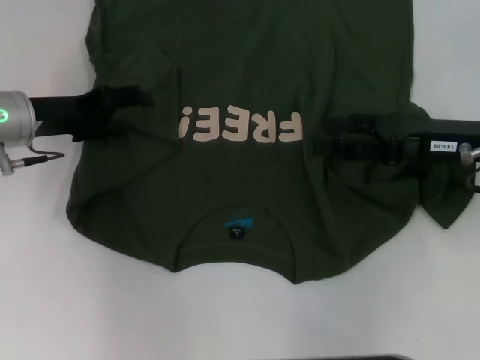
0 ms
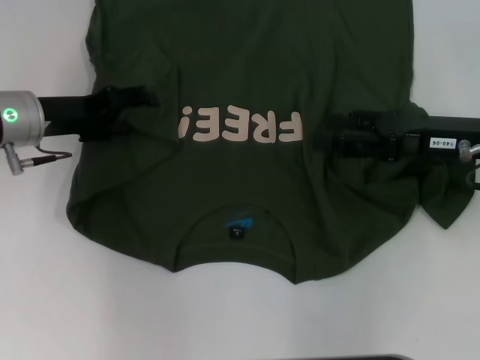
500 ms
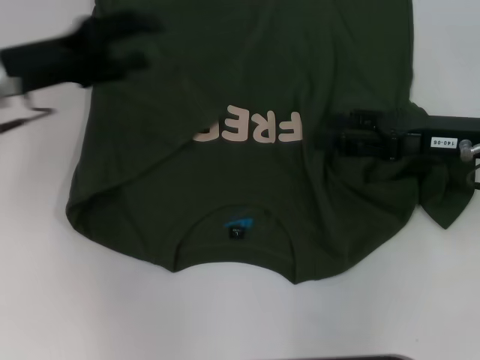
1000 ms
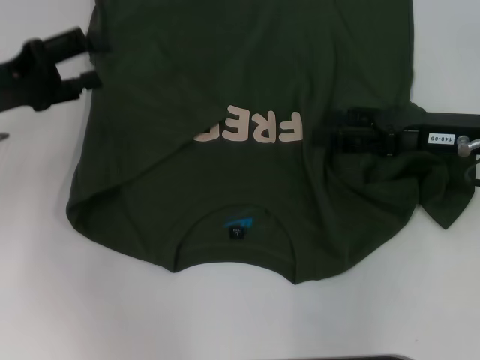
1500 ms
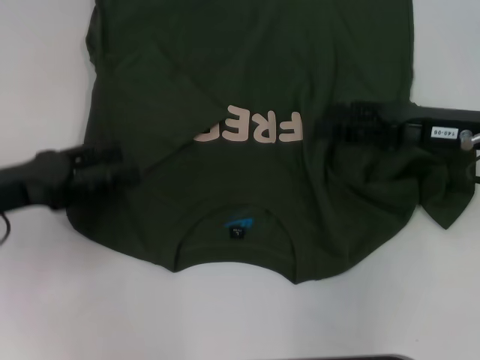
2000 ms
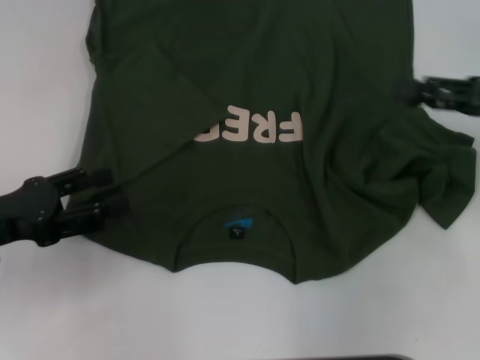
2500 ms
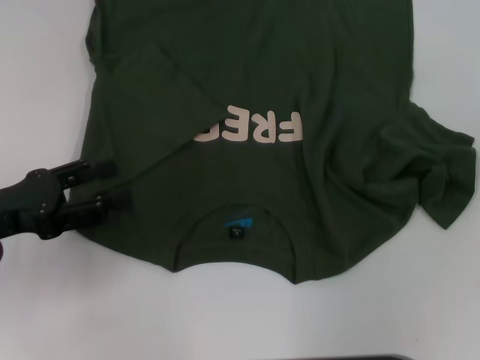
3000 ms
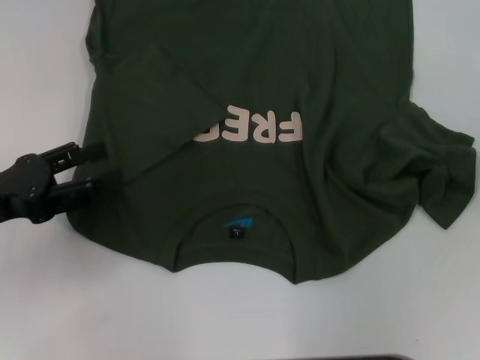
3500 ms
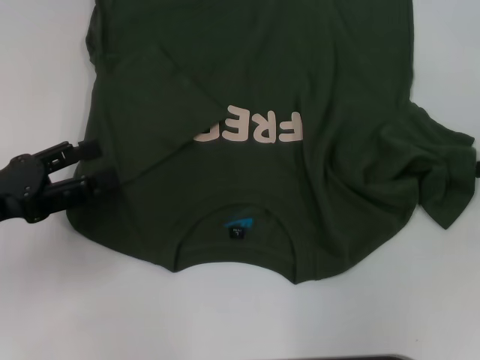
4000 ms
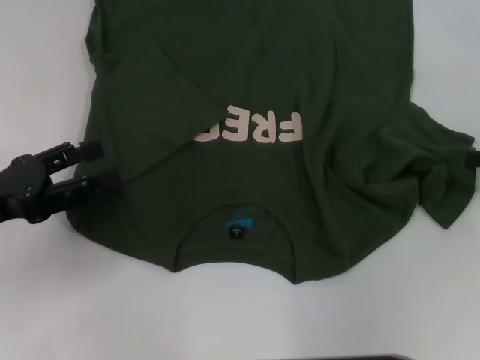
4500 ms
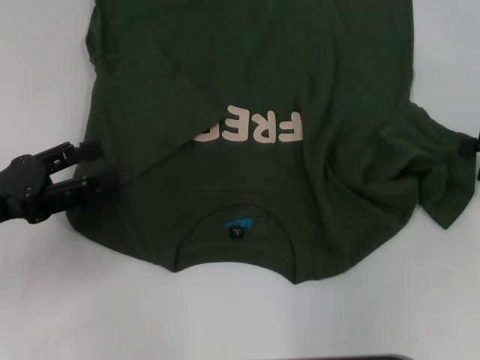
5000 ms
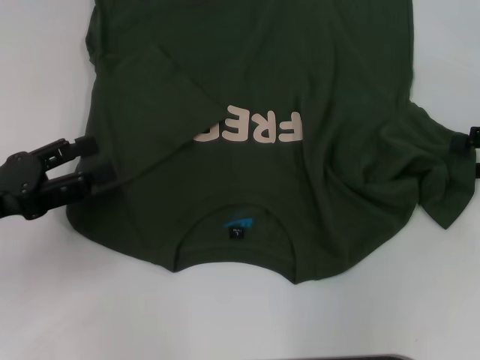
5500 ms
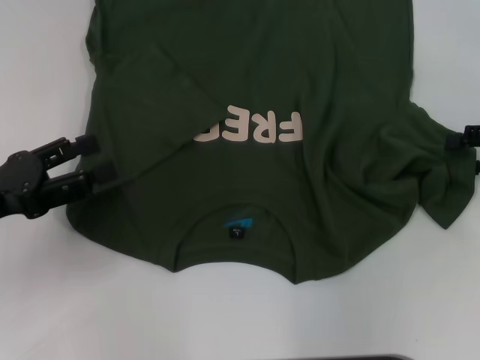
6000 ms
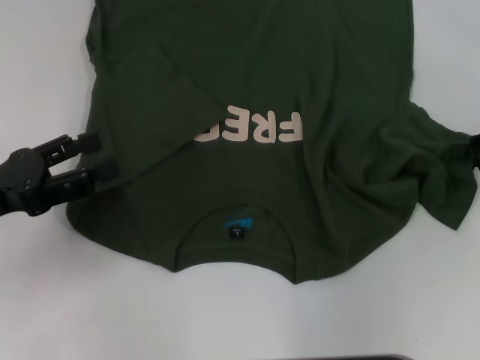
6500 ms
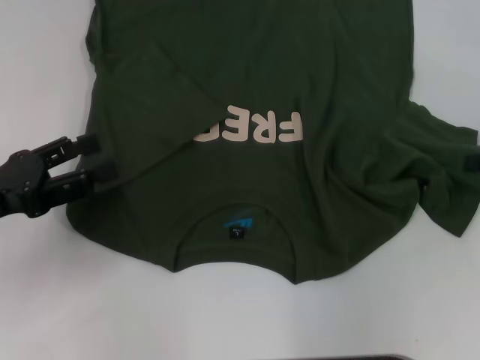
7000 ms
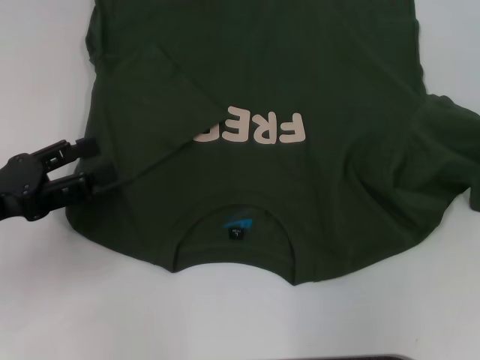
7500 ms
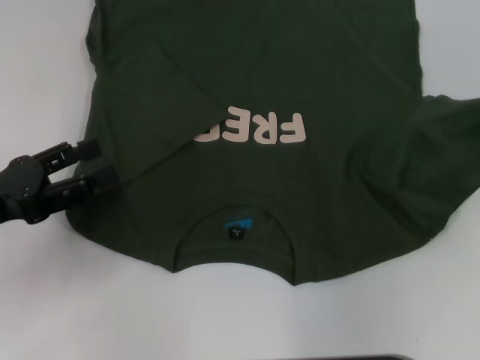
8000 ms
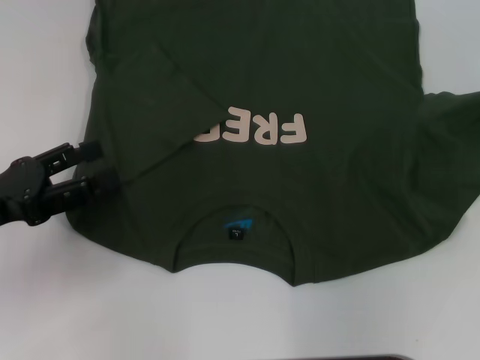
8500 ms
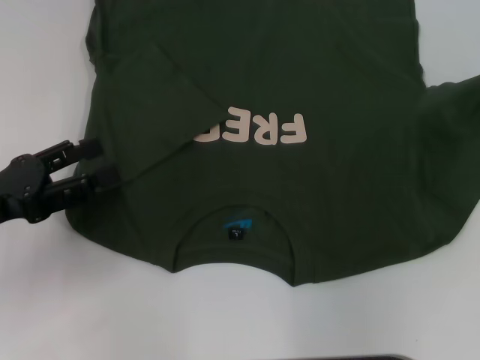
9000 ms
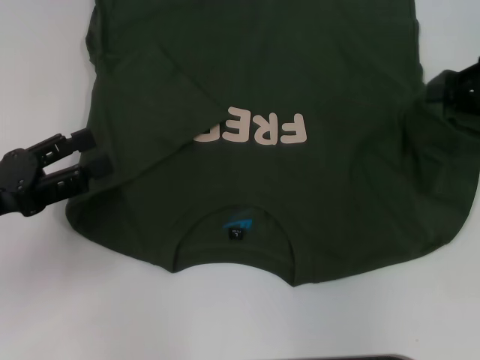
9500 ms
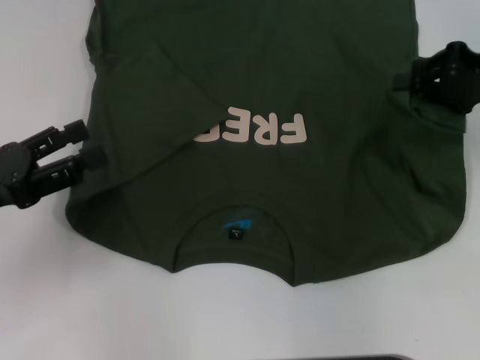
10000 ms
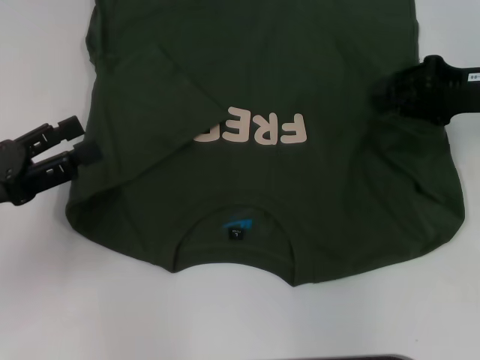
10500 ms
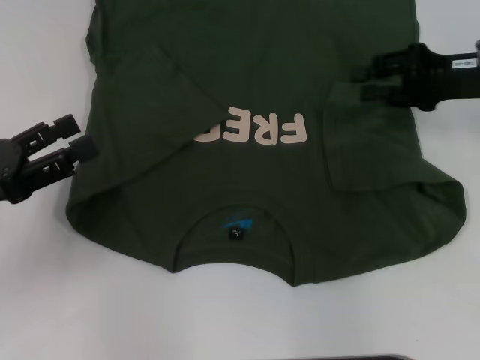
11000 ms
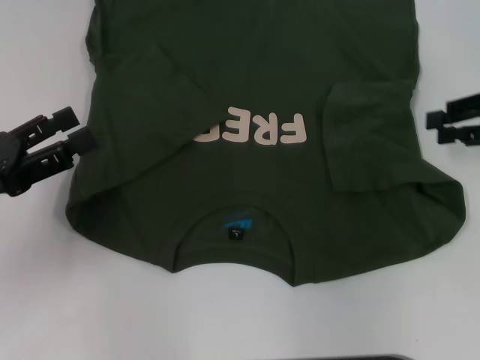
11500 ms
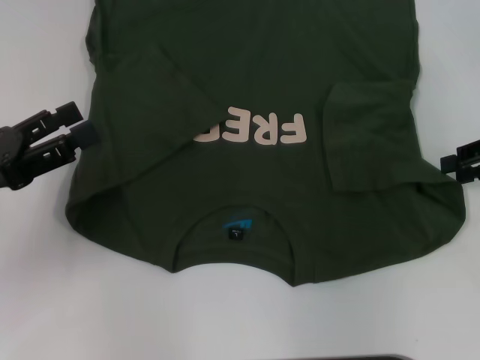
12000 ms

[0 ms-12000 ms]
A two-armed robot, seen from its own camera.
0 ms to 2000 ms: The left gripper travels backward by roughly 10 cm.
2000 ms to 4000 ms: The right gripper is displaced to the right by some 15 cm.
4000 ms to 6000 ms: The grippers make only small movements.
6000 ms to 8000 ms: The right gripper moves about 5 cm, and closes.
8000 ms to 10000 ms: The right gripper travels to the left by roughly 10 cm.
10000 ms to 12000 ms: The right gripper changes place by about 5 cm, and opens up.

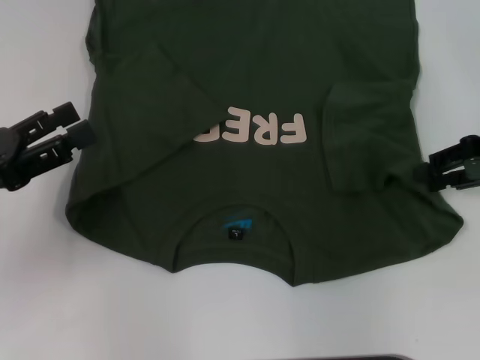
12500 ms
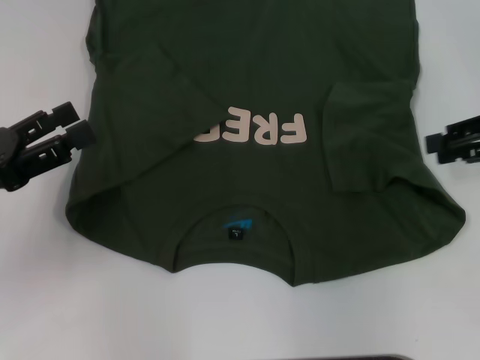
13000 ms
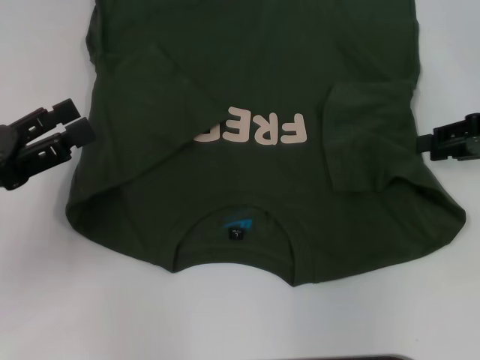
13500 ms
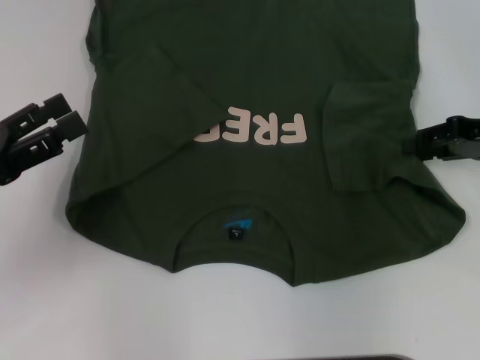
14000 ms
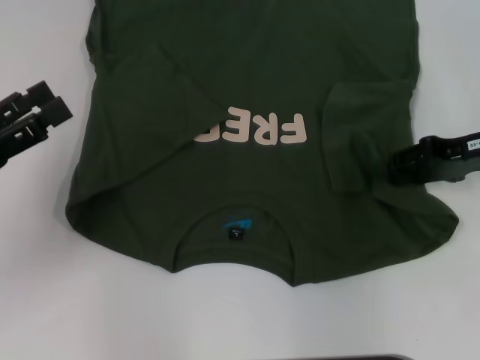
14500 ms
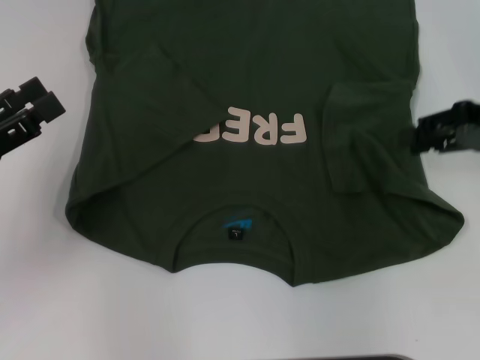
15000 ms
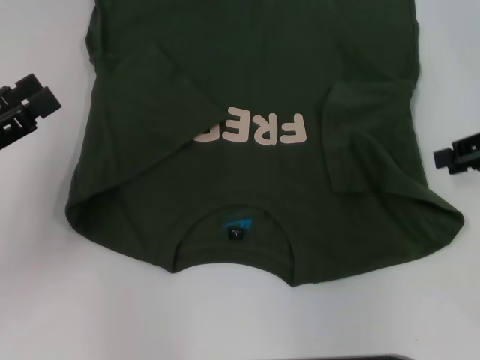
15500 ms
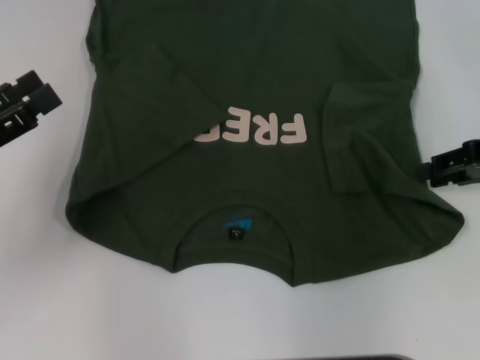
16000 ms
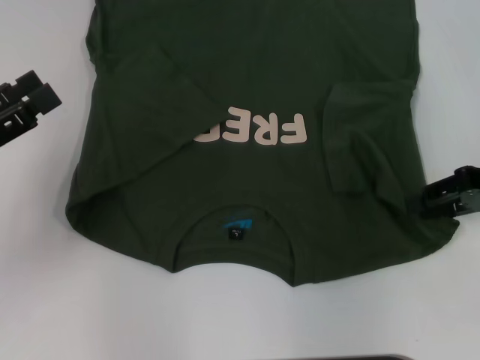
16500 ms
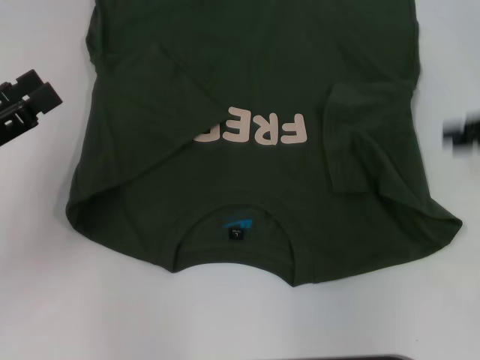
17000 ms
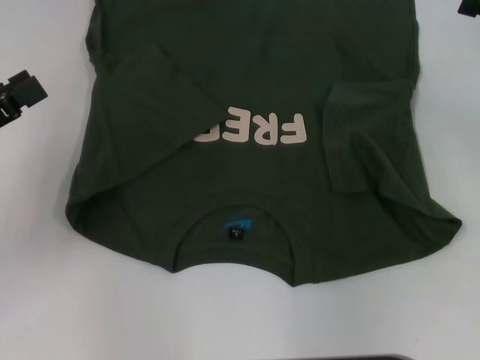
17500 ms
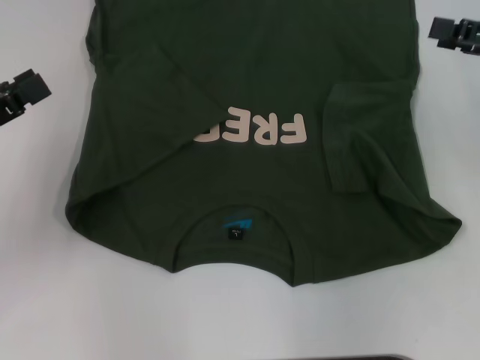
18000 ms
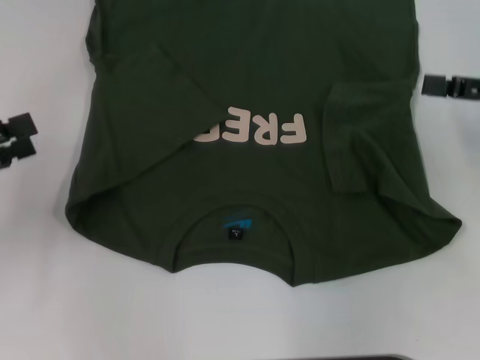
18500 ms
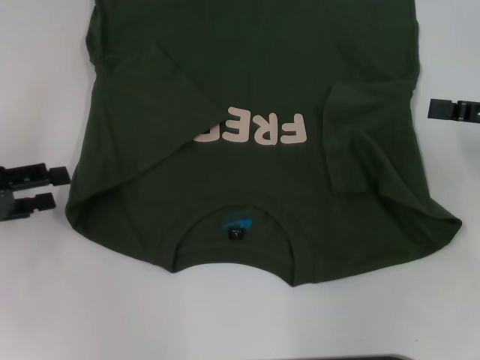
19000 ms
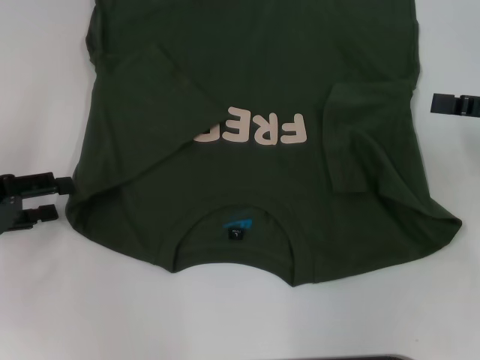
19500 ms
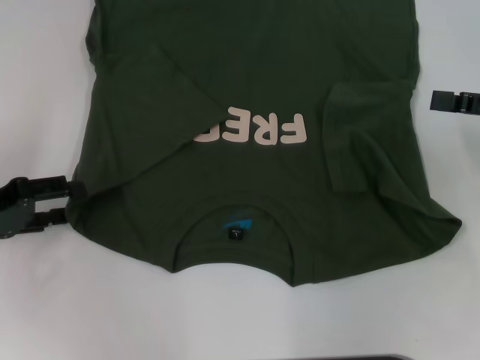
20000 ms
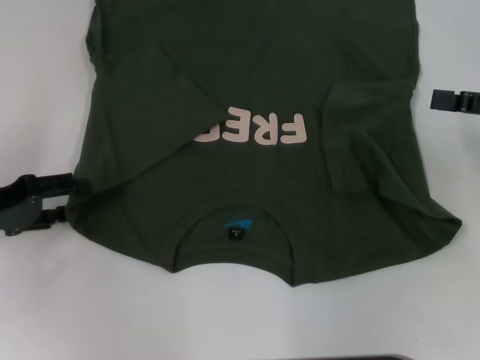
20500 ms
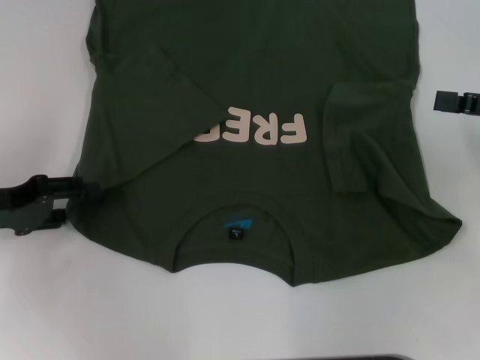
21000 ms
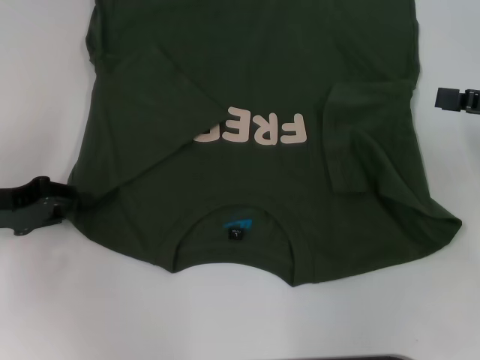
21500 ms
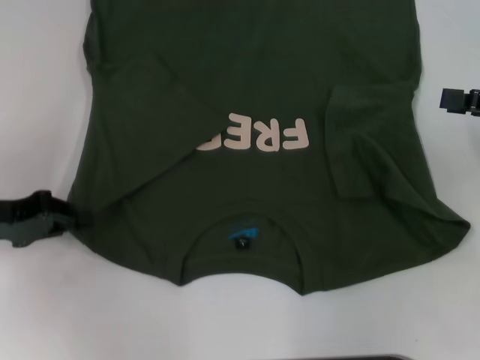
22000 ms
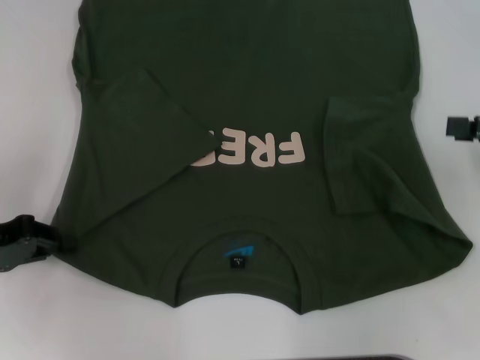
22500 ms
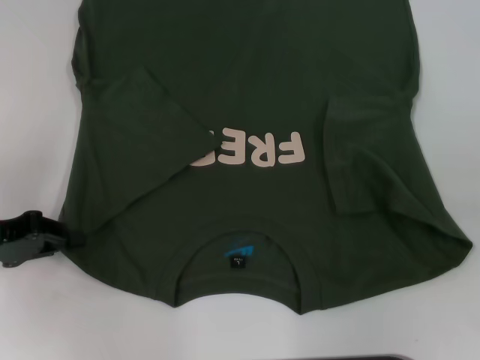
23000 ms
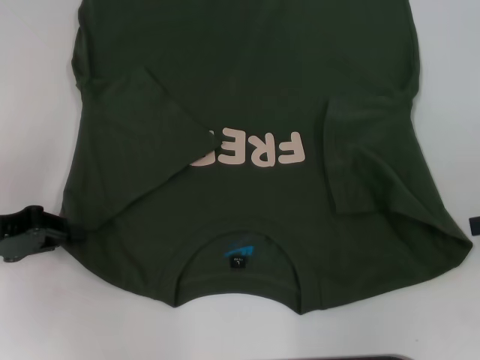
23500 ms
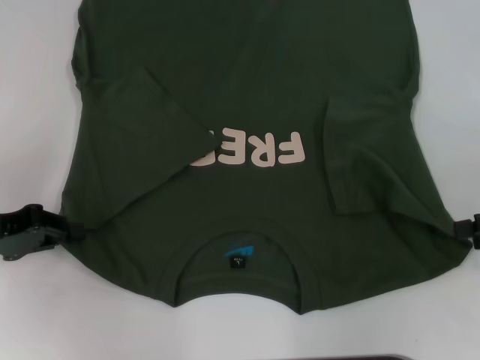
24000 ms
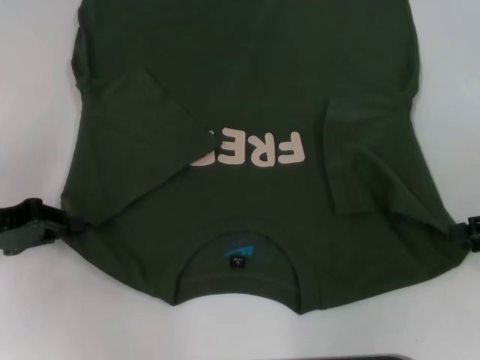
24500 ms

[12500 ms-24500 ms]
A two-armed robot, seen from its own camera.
Step, 12500 ms to 14500 ms: Fold the bottom right sleeve with your right hand.
Step, 15000 ms to 21500 ms: Grab the bottom left corner with your left hand.
12500 ms to 14500 ms: The grippers make only small movements.
16500 ms to 18500 ms: The right gripper opens up.
18500 ms to 20500 ms: The left gripper shifts about 5 cm downward.
20500 ms to 22500 ms: The left gripper closes its fingers.

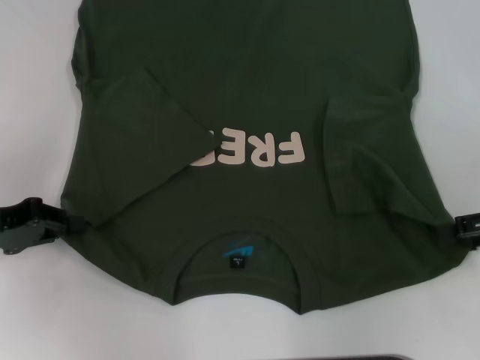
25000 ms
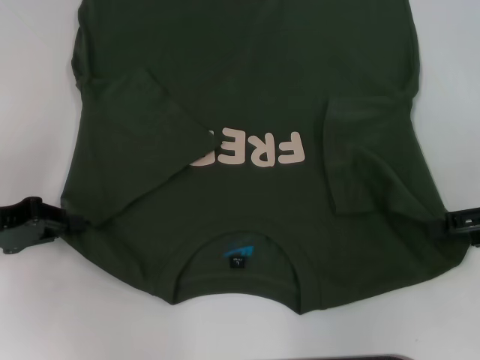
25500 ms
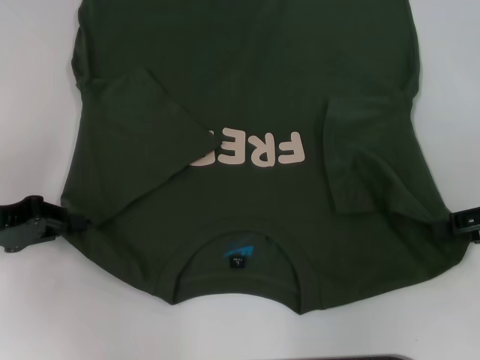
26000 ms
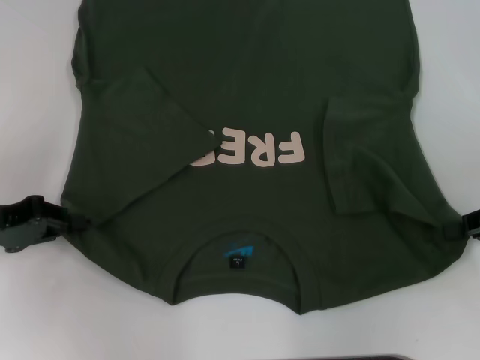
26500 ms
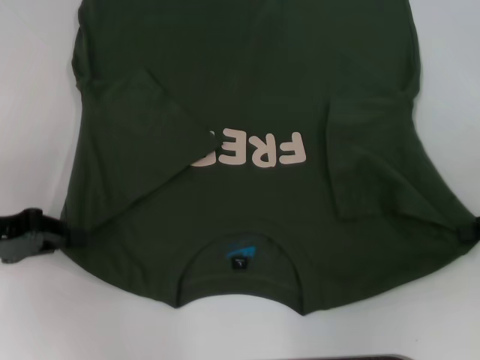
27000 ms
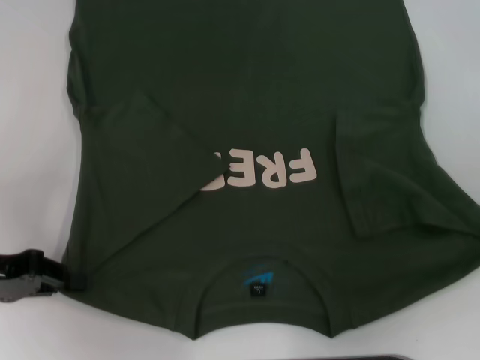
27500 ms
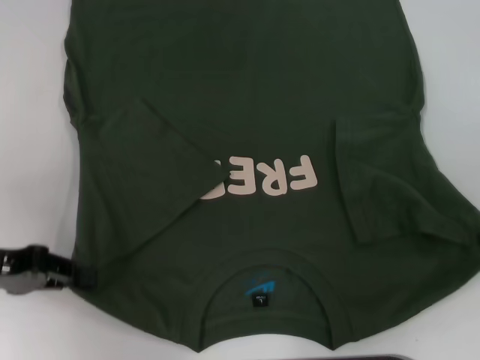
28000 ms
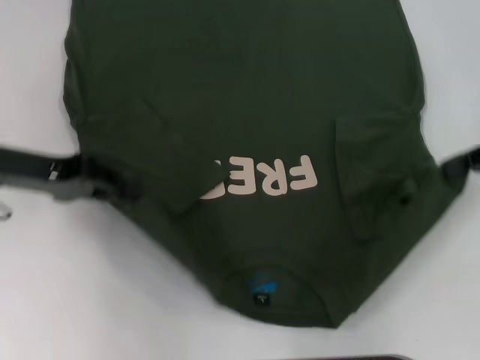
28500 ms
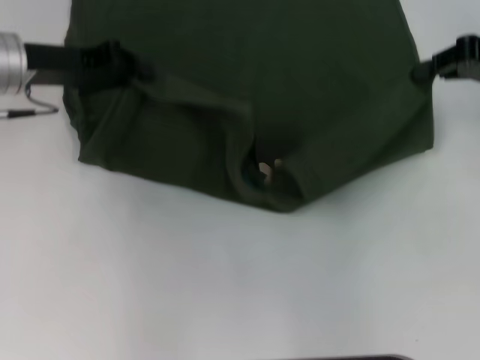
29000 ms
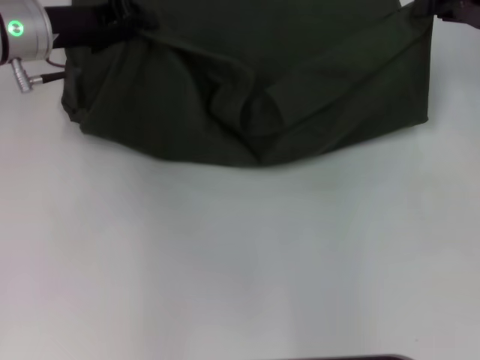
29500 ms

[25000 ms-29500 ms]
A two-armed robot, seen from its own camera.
25000 ms to 27000 ms: The right gripper closes up.
27000 ms to 29500 ms: The right gripper is displaced forward and upward by approximately 15 cm; the left gripper travels forward and to the right by approximately 20 cm.
